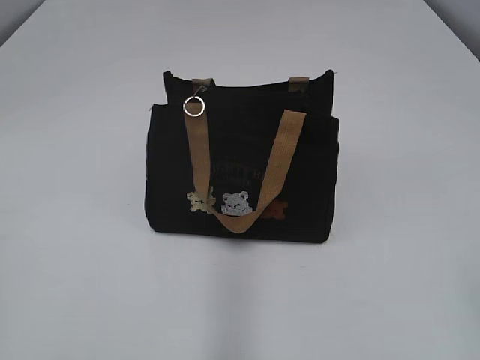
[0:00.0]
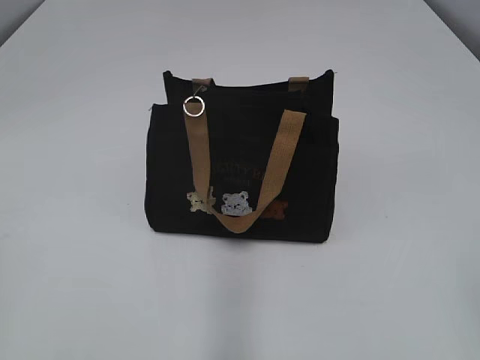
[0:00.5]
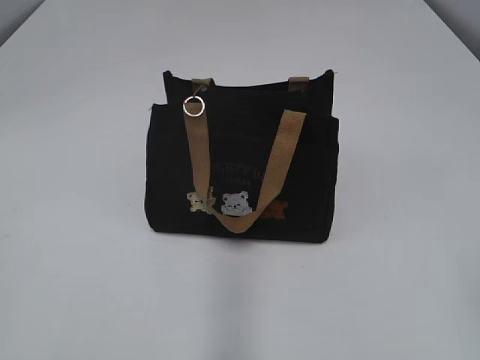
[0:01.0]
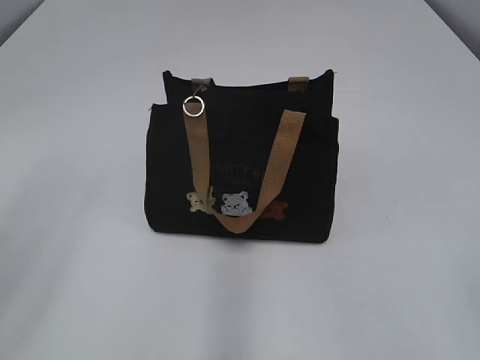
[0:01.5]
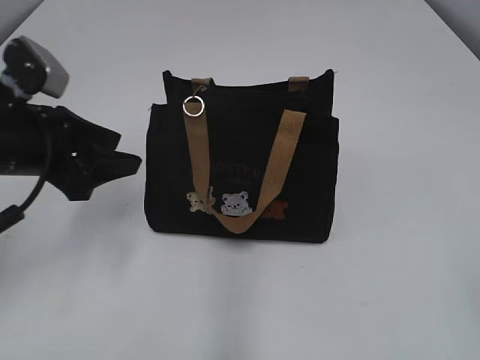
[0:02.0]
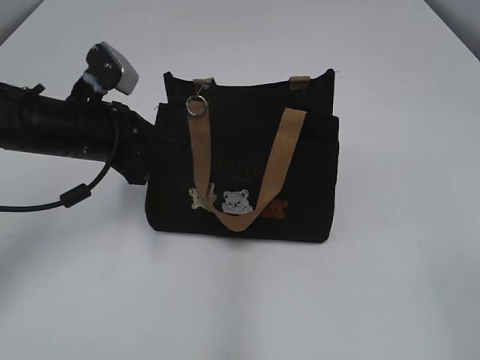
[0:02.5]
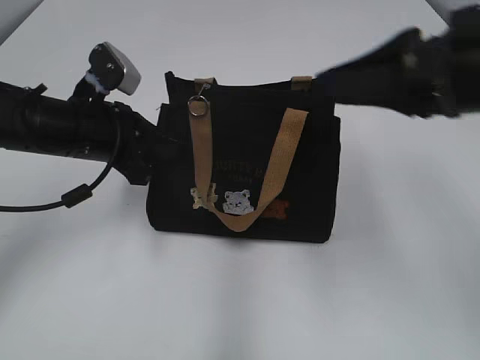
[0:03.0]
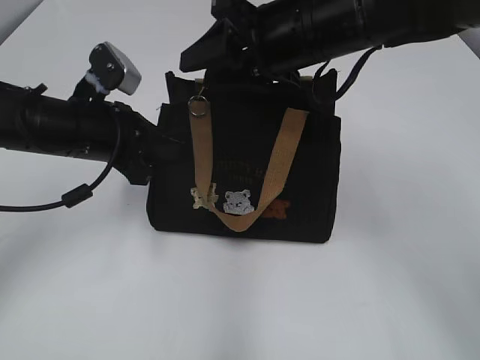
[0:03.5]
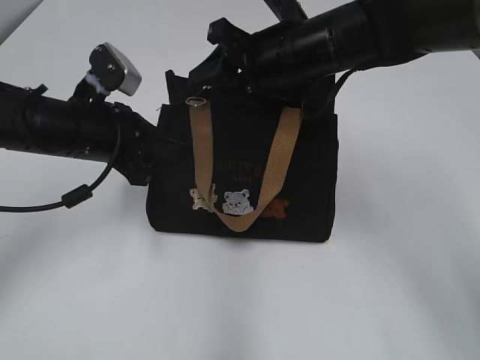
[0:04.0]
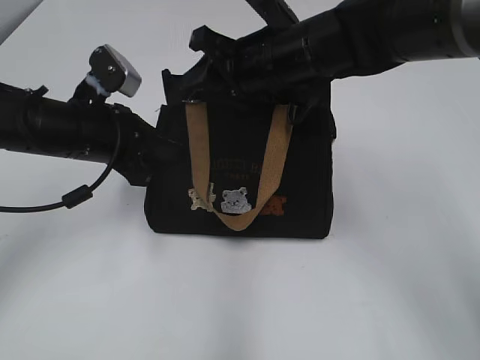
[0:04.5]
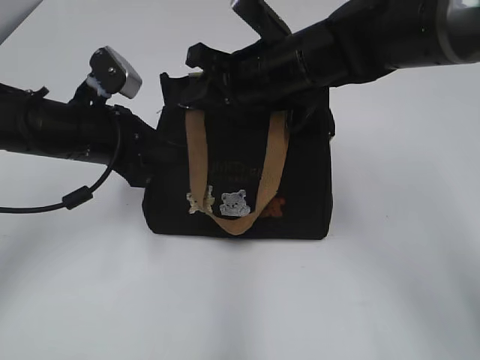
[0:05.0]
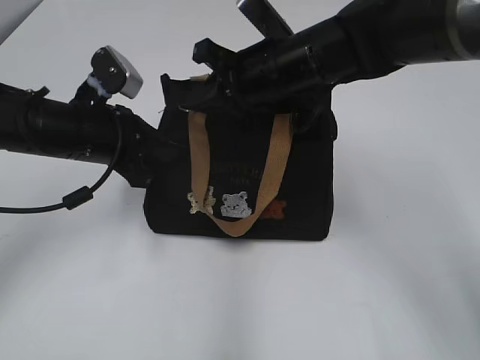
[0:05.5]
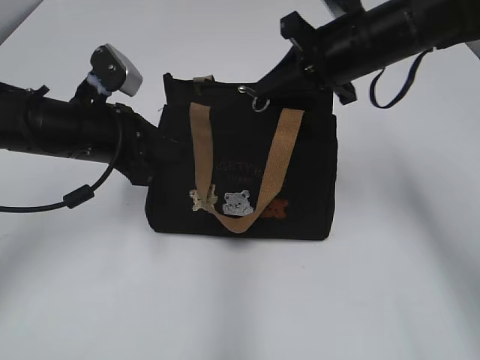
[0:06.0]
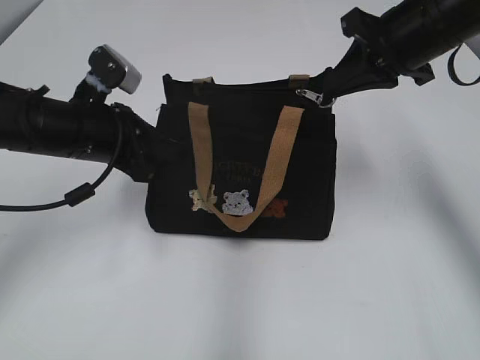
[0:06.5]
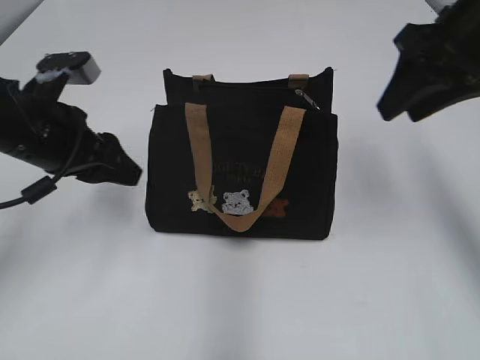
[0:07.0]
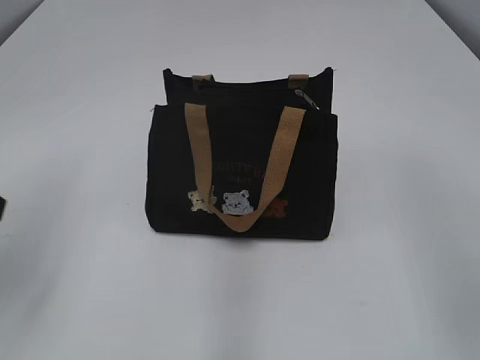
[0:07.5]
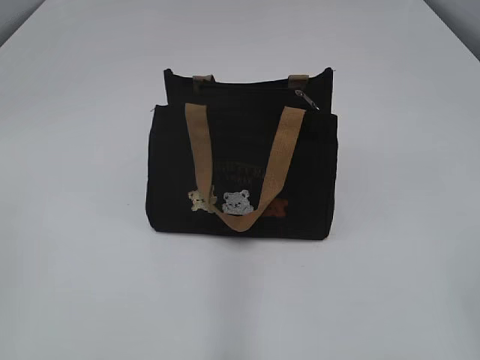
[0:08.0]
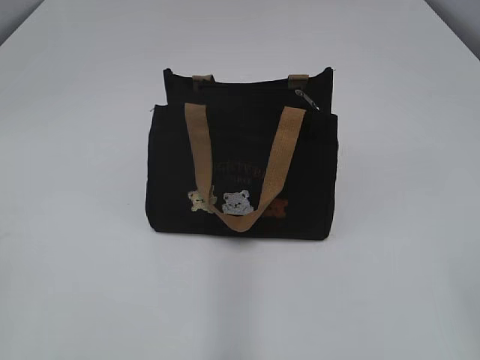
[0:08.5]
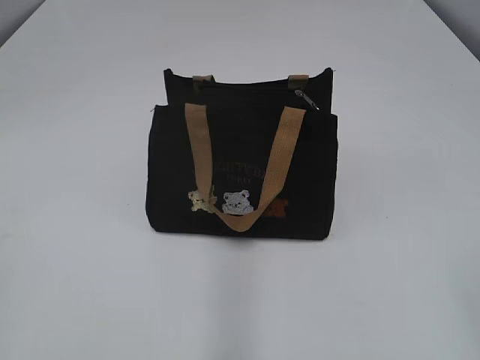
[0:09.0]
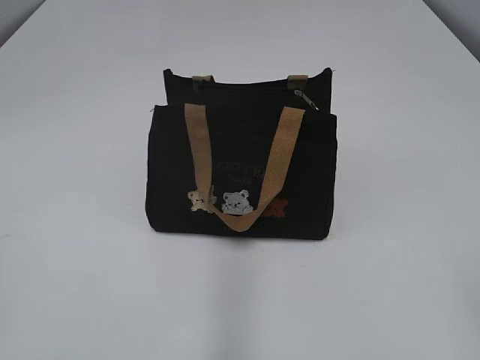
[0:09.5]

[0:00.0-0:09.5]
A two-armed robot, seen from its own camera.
Step, 0:00.0 to 0:06.5: Pull open the zipper with your right hand.
0:02.0 to 0:04.0: The left gripper travels forward and to the right by some 10 cm, and closes up. The right gripper moves forward and to the left, some 40 cm.
0:04.0 to 0:05.5: The right gripper closes.
0:05.5 to 0:07.5: The left gripper shifts some 15 cm backward, to the left and upward, and opens up; the right gripper heads backward, to the right and upward, covering approximately 30 cm, and opens its fingers.
0:07.5 to 0:09.5: The two grippers go about 20 cm backward.

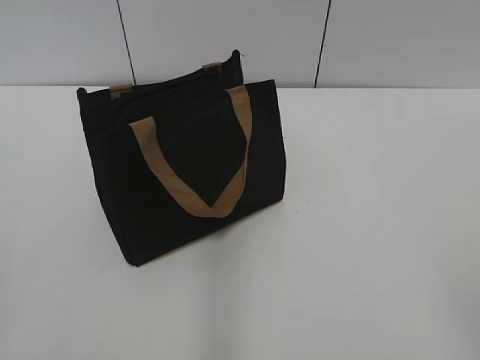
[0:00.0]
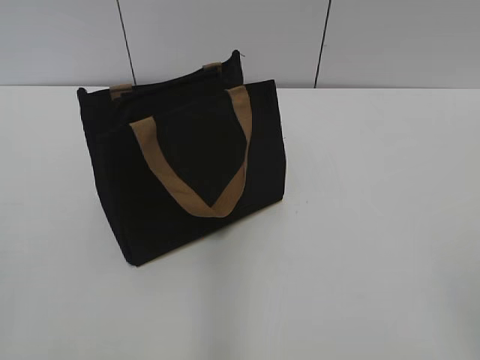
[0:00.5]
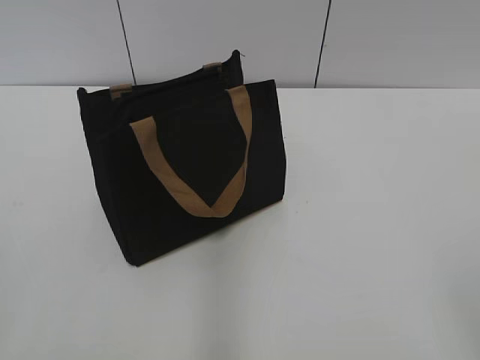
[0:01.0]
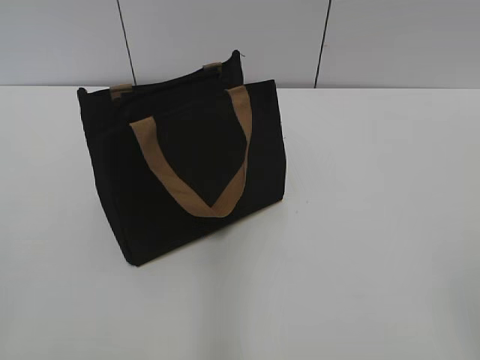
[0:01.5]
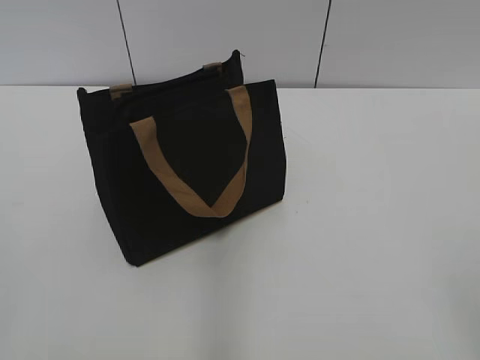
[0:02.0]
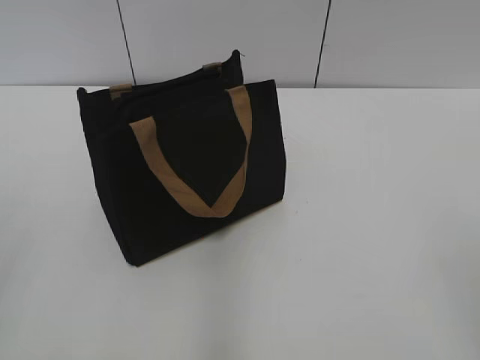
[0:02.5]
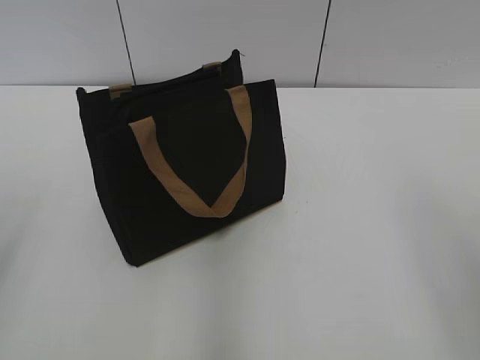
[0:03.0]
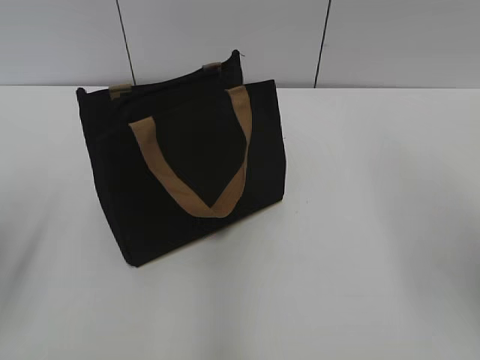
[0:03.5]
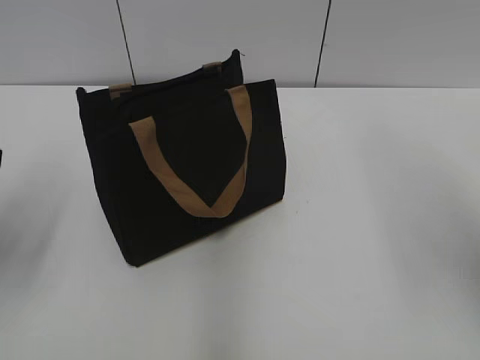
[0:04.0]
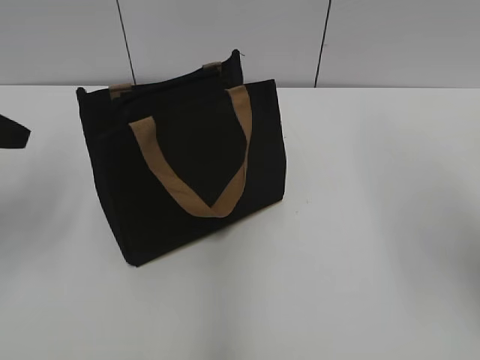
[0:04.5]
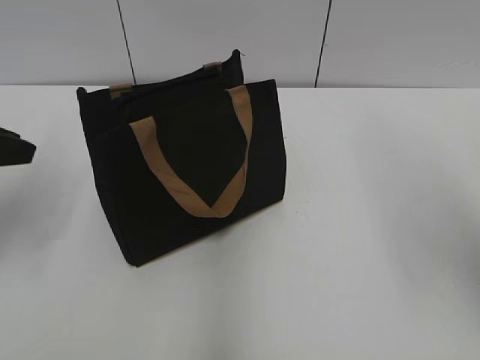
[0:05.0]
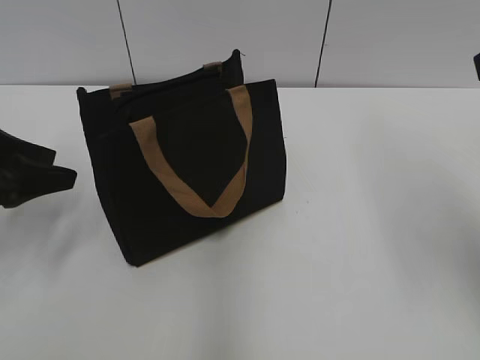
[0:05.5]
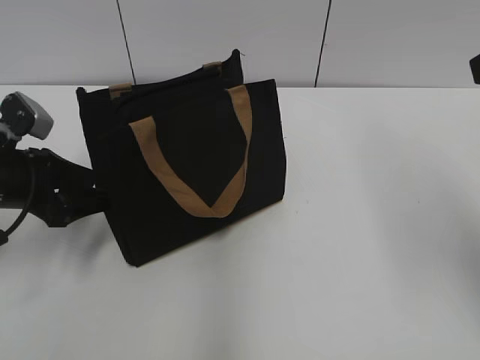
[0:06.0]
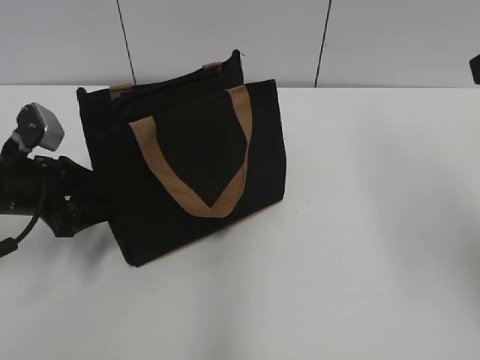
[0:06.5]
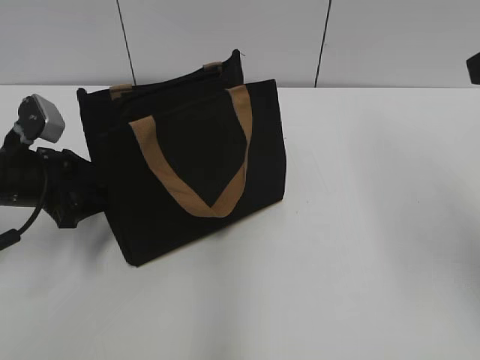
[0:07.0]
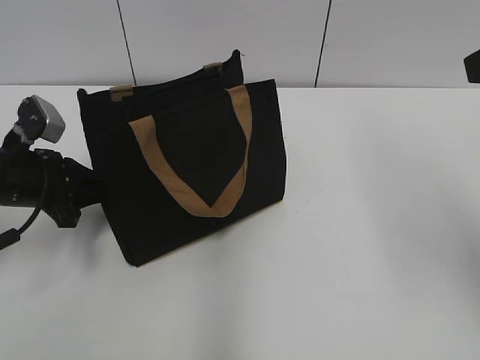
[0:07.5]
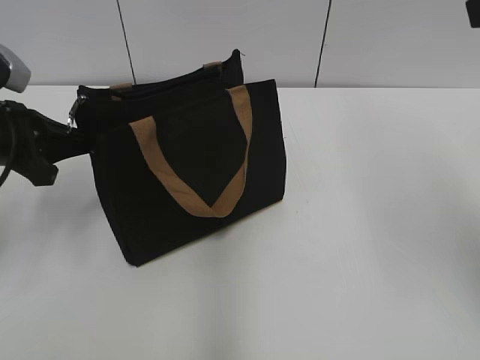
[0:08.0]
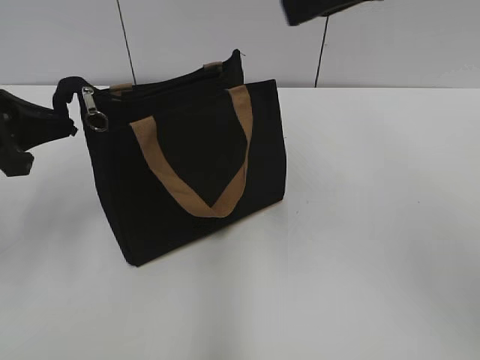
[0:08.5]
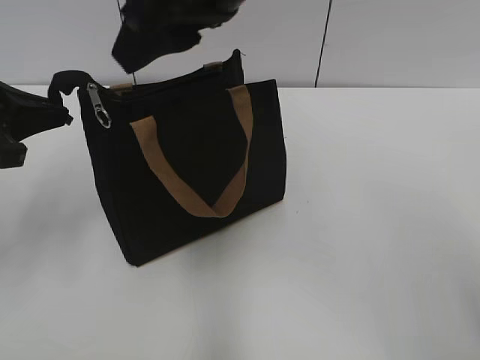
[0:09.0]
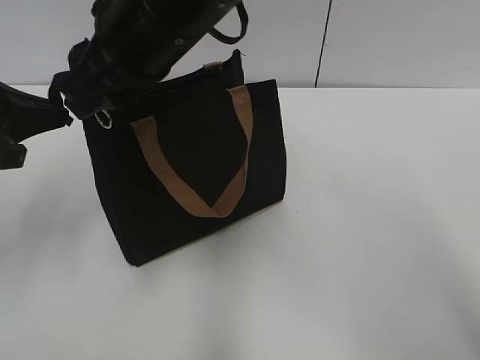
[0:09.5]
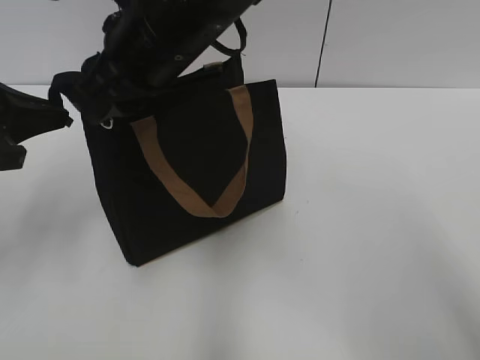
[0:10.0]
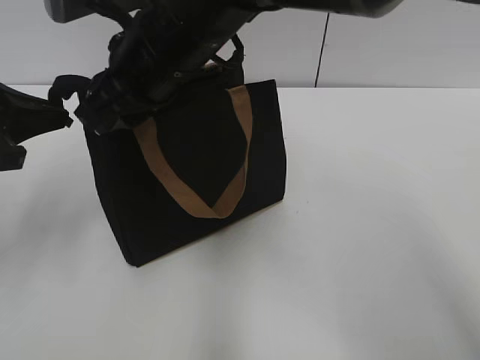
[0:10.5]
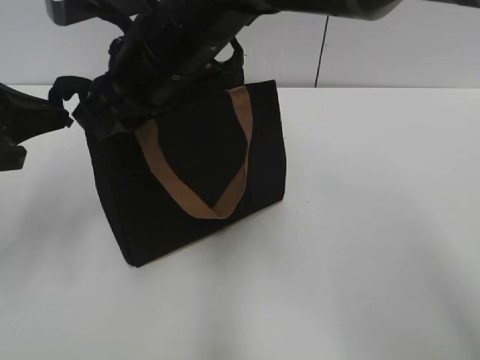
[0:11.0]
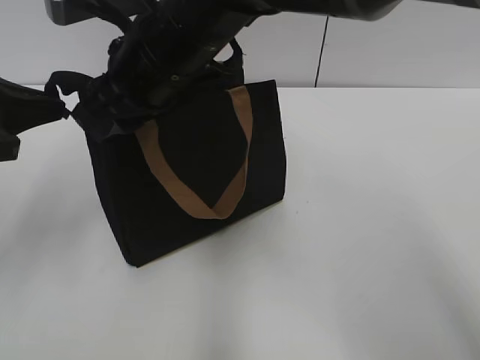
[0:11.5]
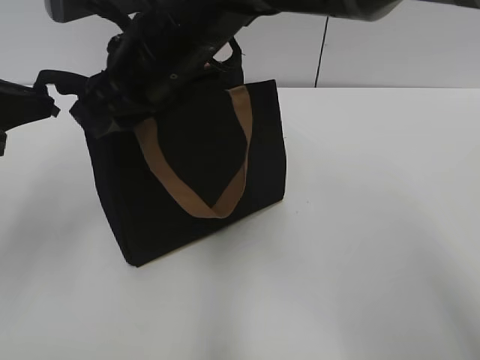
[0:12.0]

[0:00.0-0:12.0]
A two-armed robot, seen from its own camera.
0:02.0 to 0:04.0: The right gripper moves forward and upward, roughly 20 cm; the left gripper heads forward, covering approximately 20 cm.
0:04.0 to 0:06.0: The left gripper heads downward and forward, covering approximately 15 cm, and opens.
0:06.0 to 0:08.0: The left gripper closes up.
0:08.0 to 0:10.0: The right gripper goes roughly 30 cm to the left. Meanwhile the left gripper shifts approximately 5 cm upward.
0:10.0 to 0:12.0: The grippers stay close to where they were, moving slightly.

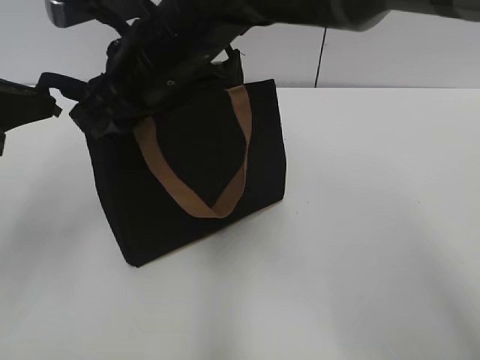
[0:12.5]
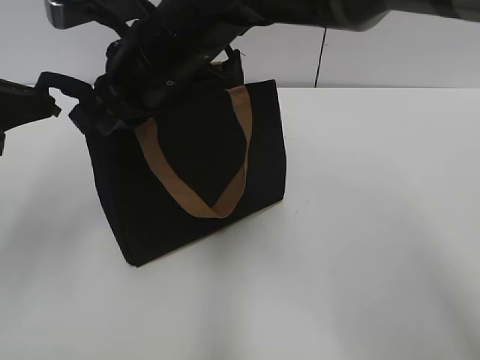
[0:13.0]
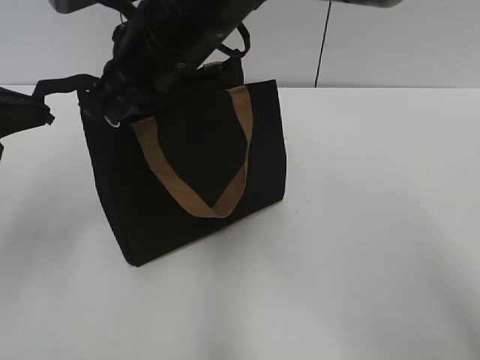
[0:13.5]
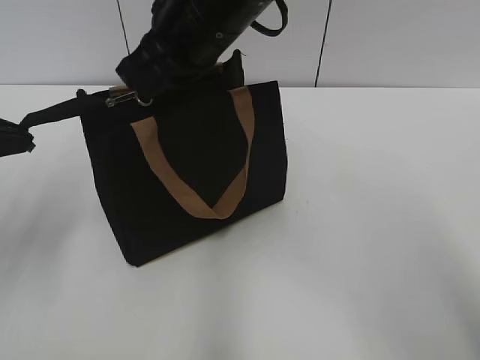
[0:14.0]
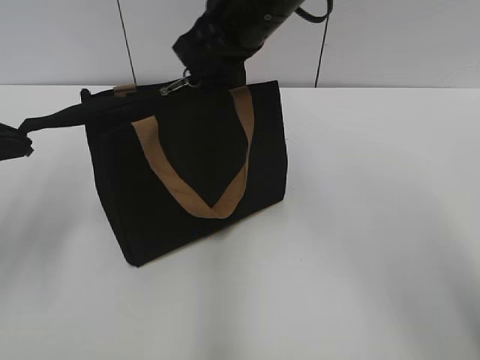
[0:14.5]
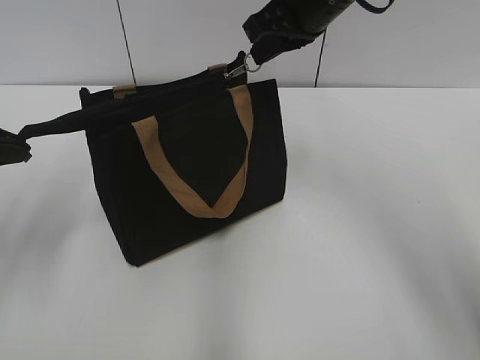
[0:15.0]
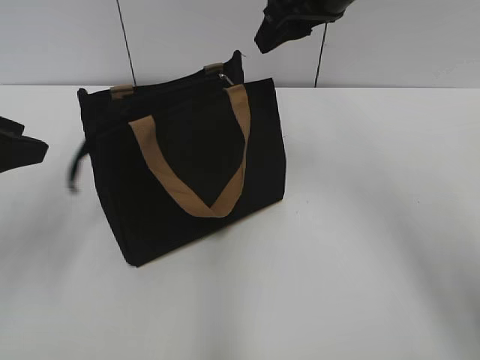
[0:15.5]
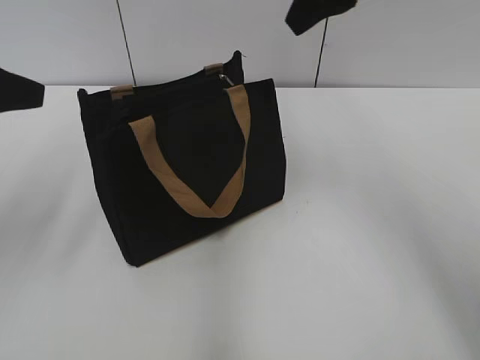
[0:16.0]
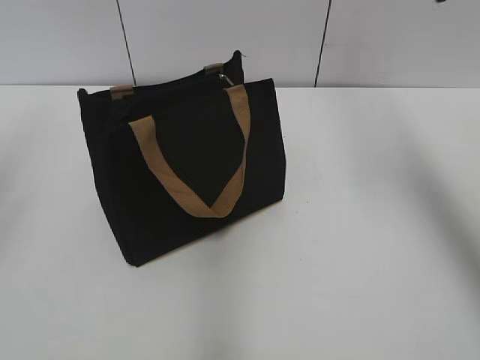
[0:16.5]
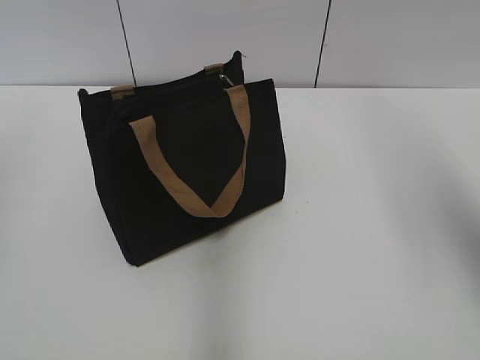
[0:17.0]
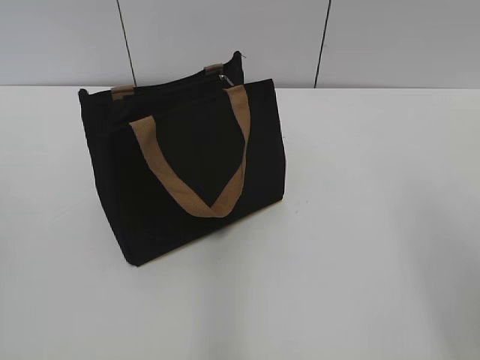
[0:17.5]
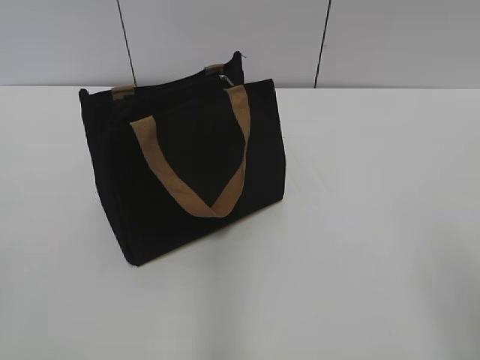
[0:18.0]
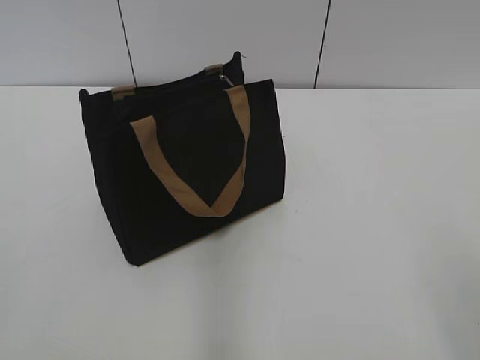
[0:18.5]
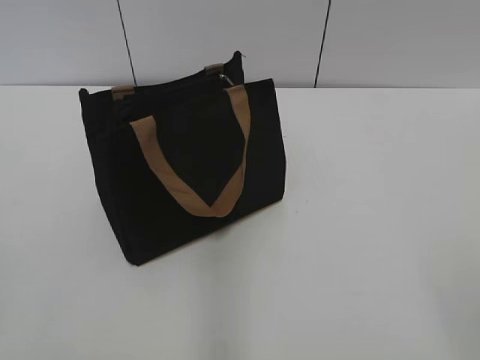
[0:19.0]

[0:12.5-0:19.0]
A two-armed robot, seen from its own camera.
Step, 0:12.5 to 0:15.0: Zip up the bag with your right hand.
0:12.5 to 0:14.5: The right gripper moves to the right, roughly 10 cm, and closes.
0:14.5 to 0:17.0: The right gripper moves to the right, upward and backward, approximately 30 cm, and opens its fingers; the left gripper travels upward by approximately 15 cm, and opens its fingers.
0:17.0 to 0:19.0: The right gripper goes approximately 30 cm backward and downward.
